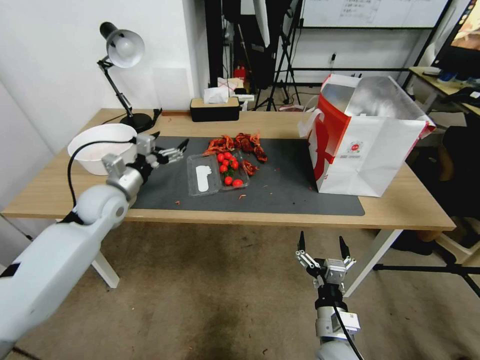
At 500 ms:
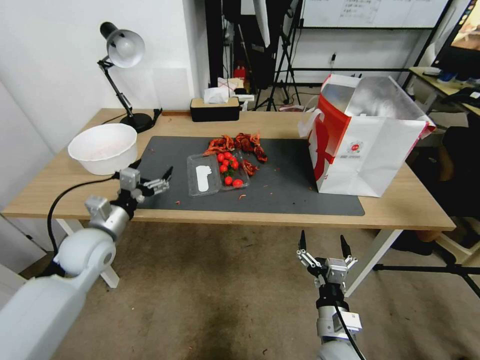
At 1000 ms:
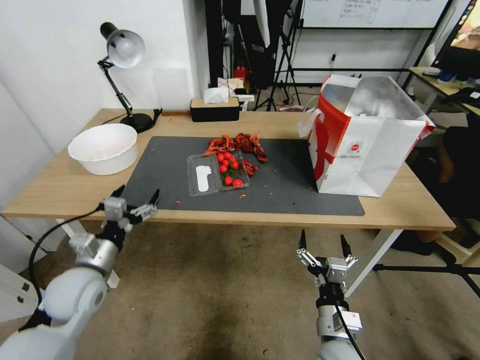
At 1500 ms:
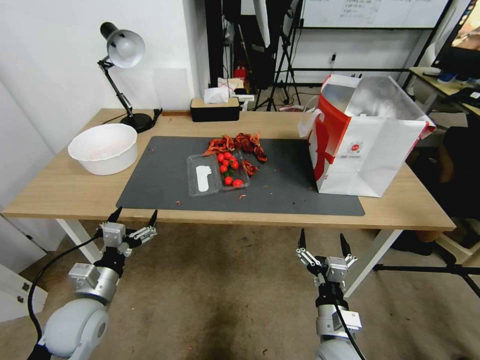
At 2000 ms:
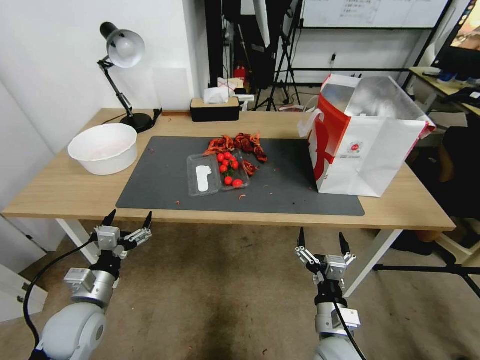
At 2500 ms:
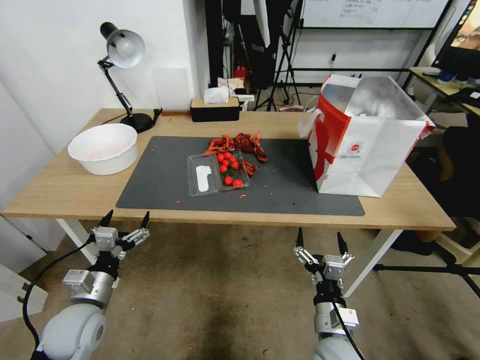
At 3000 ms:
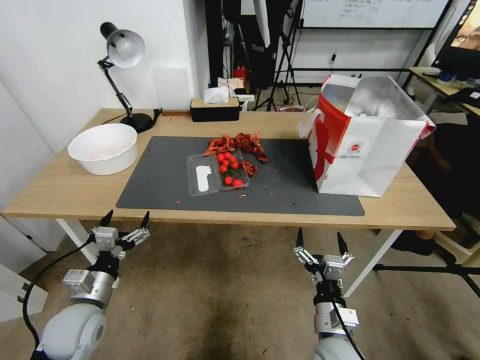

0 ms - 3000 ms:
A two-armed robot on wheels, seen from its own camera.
0 ms - 1500 ms: The left gripper is displaced backward and downward by roughly 25 cm.
1500 ms - 3000 ms: The grippers move only a little.

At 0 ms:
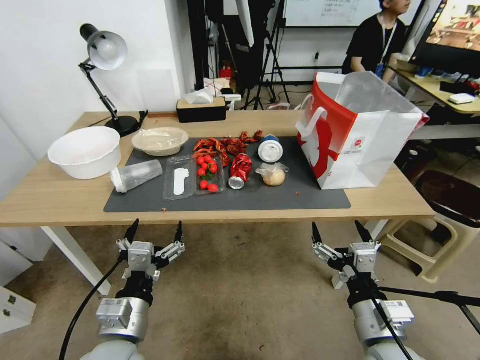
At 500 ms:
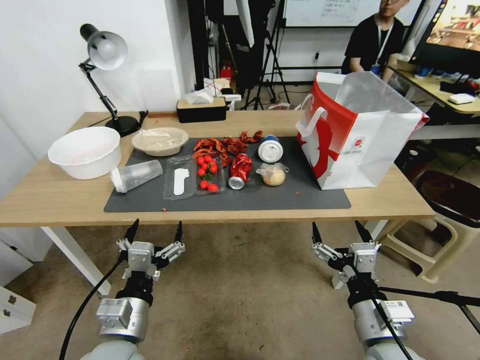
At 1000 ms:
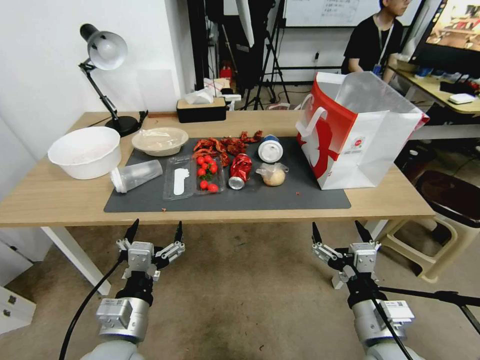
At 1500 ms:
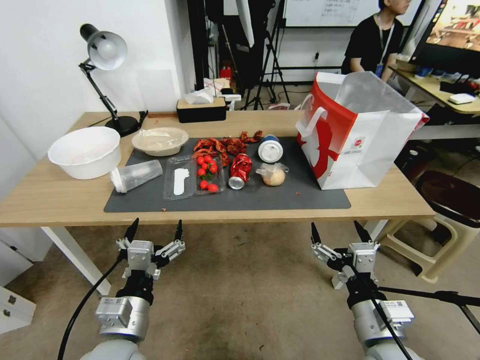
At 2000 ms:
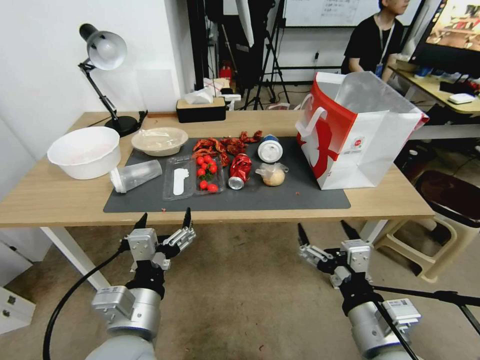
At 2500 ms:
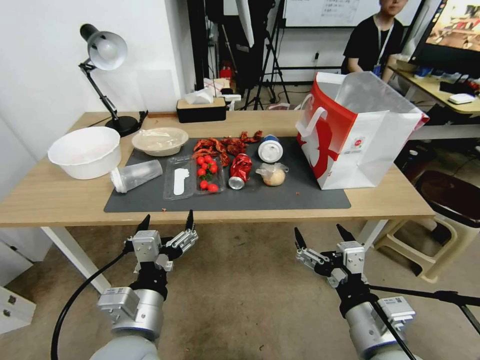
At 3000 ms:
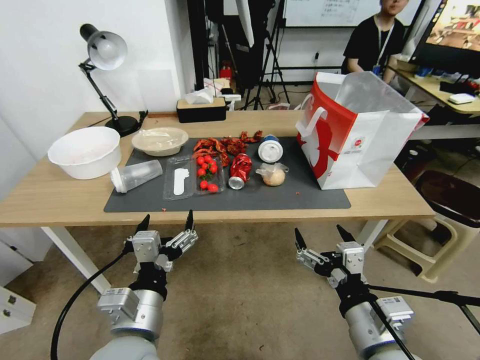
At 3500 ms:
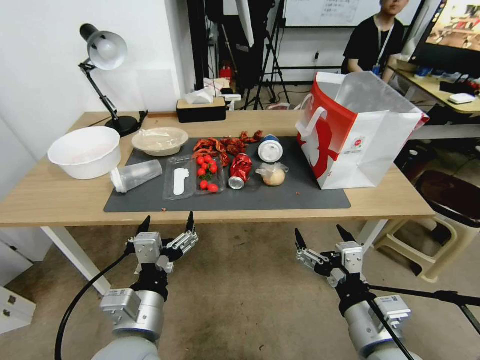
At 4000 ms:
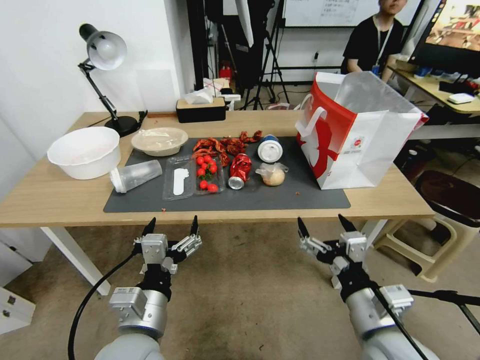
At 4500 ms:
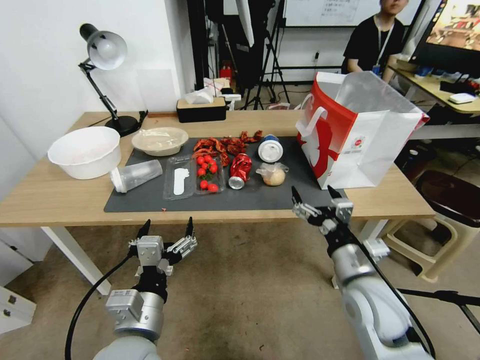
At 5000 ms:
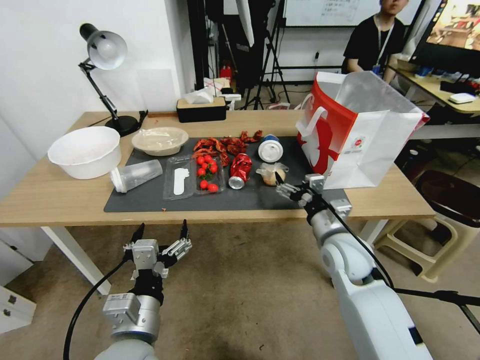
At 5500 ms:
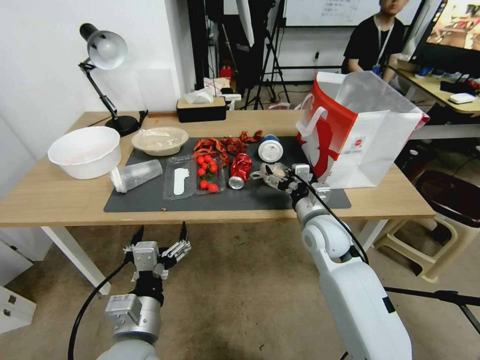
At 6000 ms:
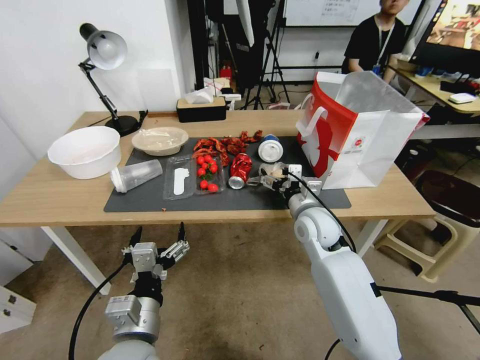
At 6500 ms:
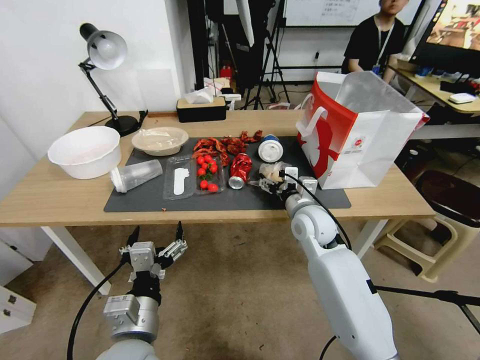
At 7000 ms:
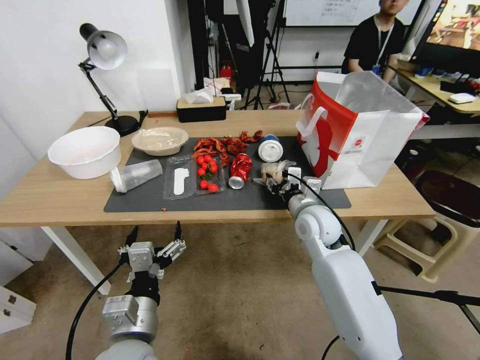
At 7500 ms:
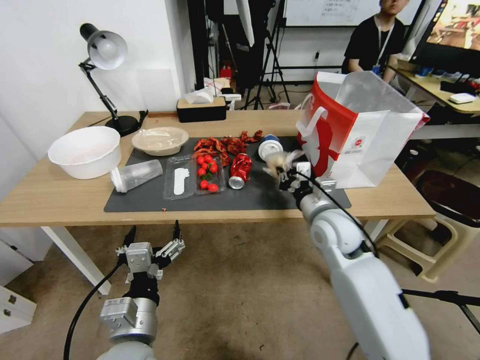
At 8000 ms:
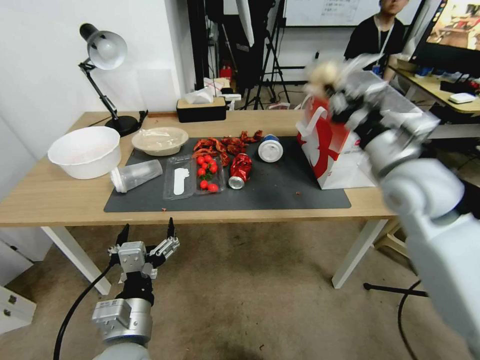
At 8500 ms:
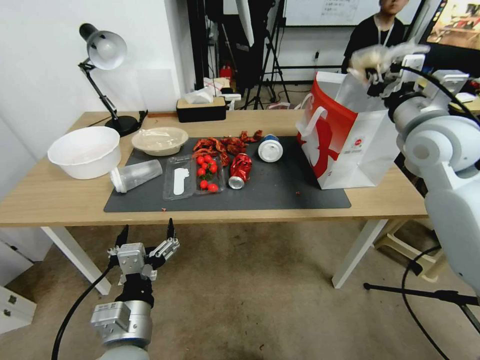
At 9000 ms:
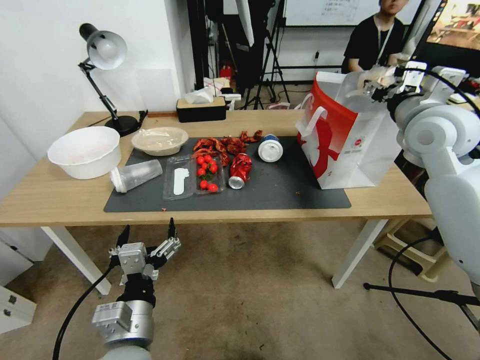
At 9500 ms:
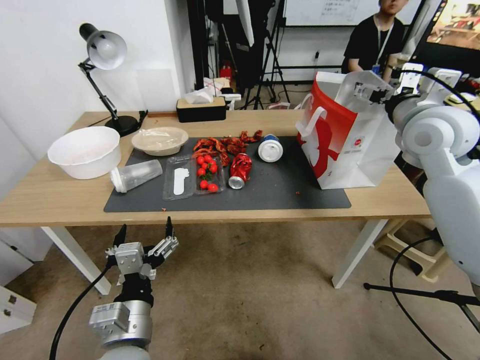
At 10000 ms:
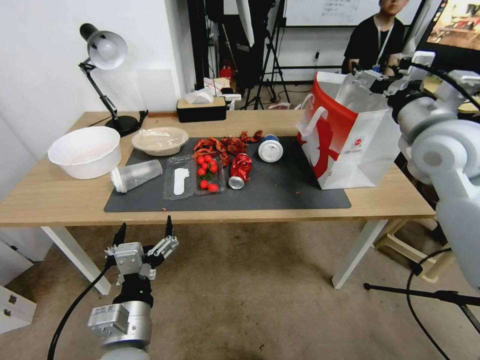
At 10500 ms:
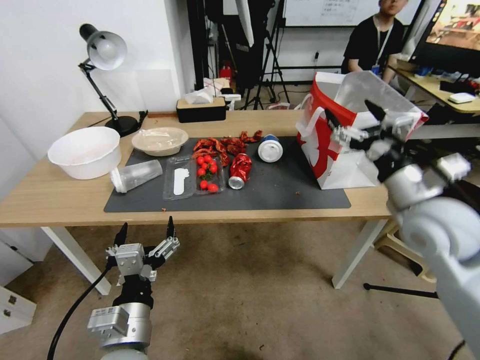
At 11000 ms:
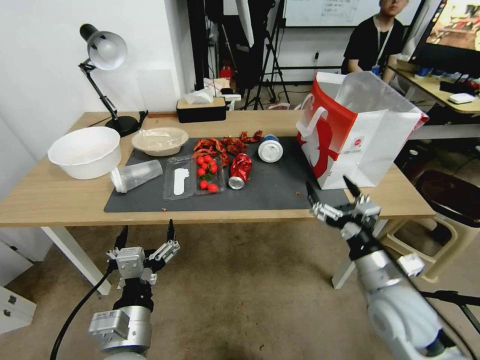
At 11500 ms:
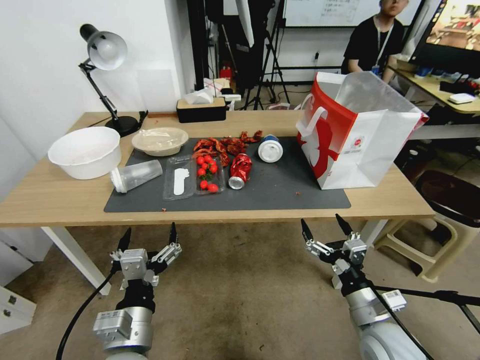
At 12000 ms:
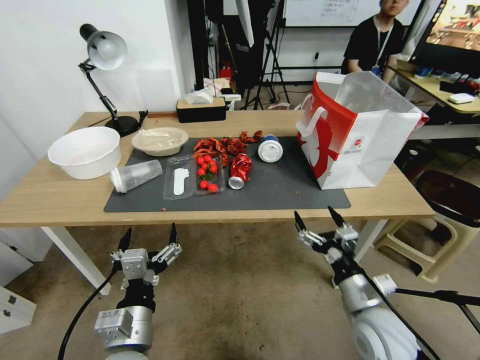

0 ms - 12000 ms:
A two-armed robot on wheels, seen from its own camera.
2000 ms - 4000 ms: The grippers make only small movements.
4000 ms - 6000 ms: The right gripper is displaced forward by approximately 25 cm.
6000 ms - 8000 ms: The right gripper travels upward and to the right by about 20 cm, and closes its fingers.
8000 ms - 10000 ms: The right gripper shifts about 10 cm upward and to the right, and opens.
10000 ms - 12000 ms: The right gripper heads downward and backward, covering some 35 cm.

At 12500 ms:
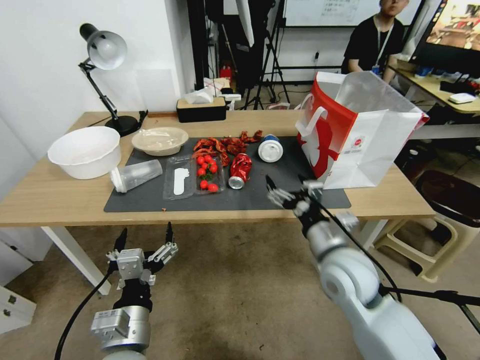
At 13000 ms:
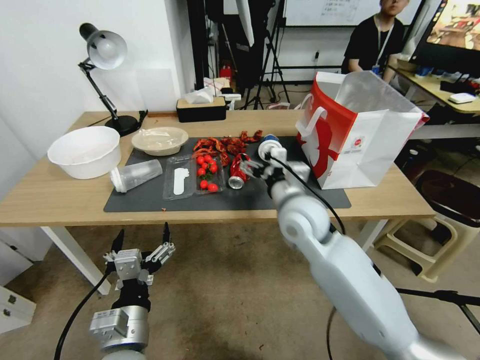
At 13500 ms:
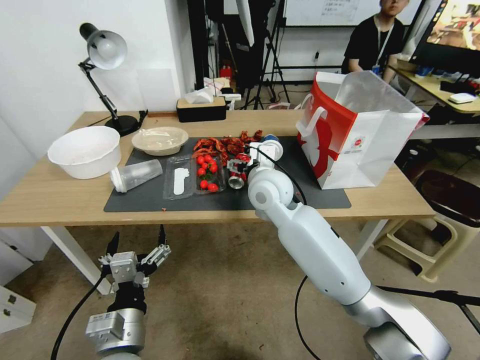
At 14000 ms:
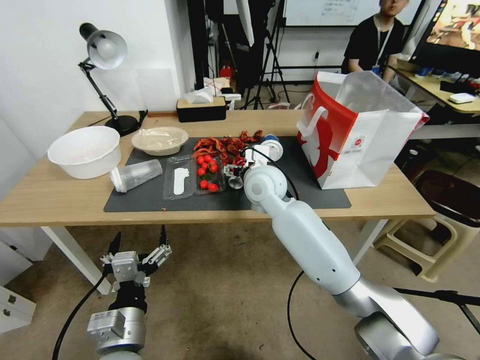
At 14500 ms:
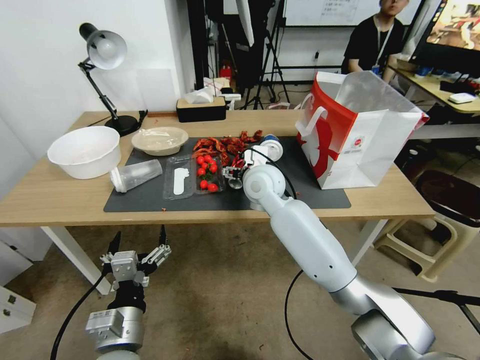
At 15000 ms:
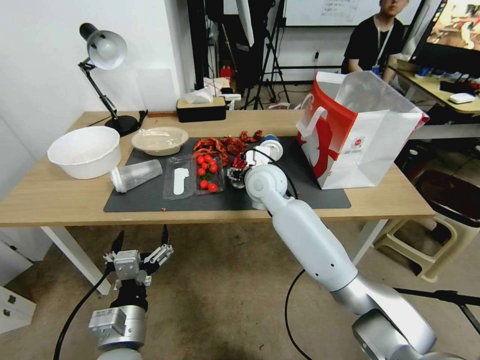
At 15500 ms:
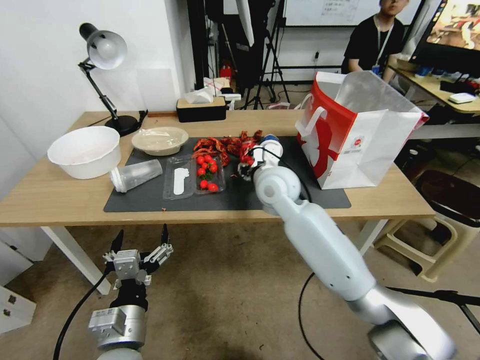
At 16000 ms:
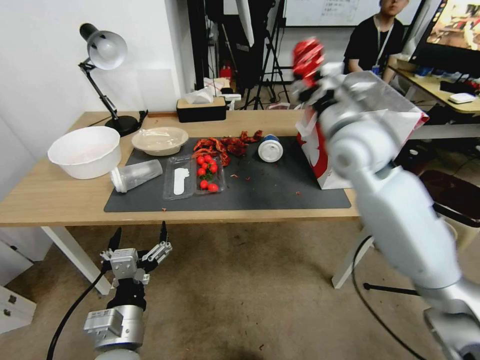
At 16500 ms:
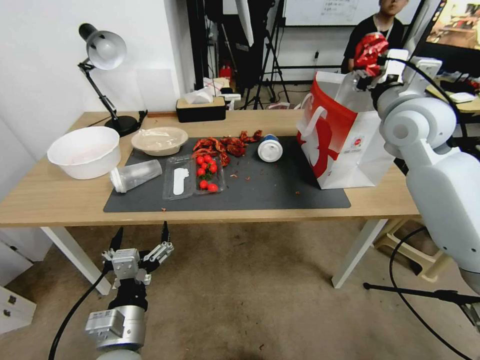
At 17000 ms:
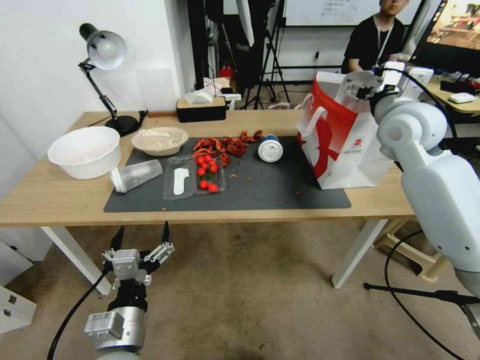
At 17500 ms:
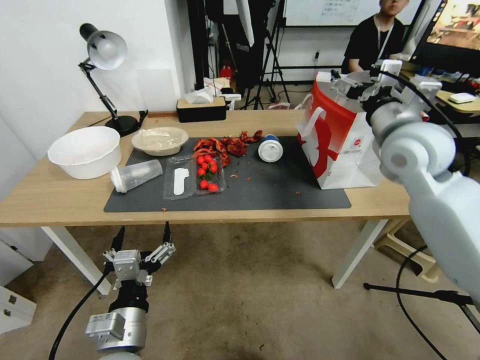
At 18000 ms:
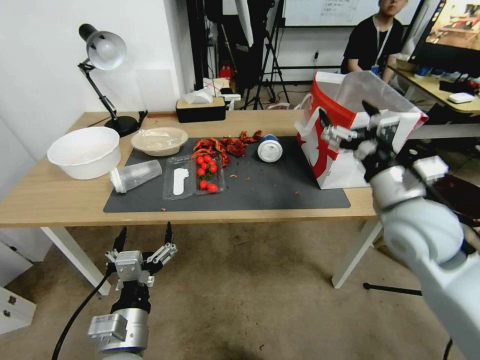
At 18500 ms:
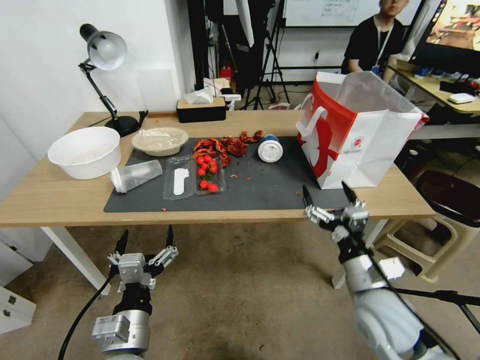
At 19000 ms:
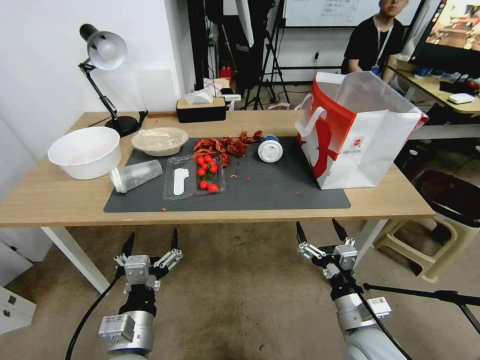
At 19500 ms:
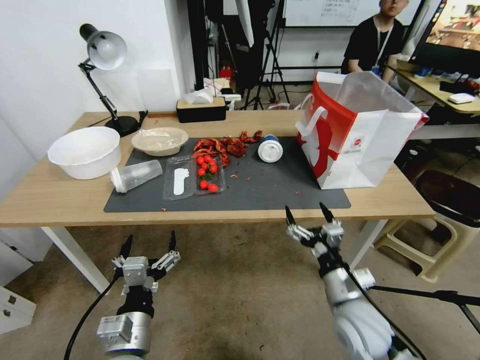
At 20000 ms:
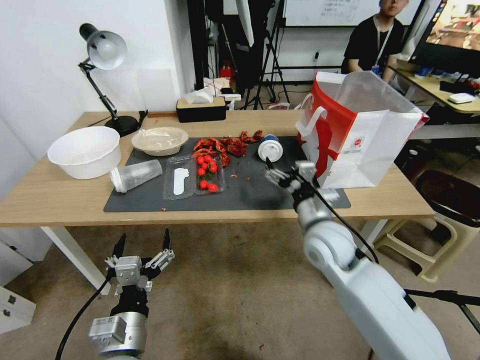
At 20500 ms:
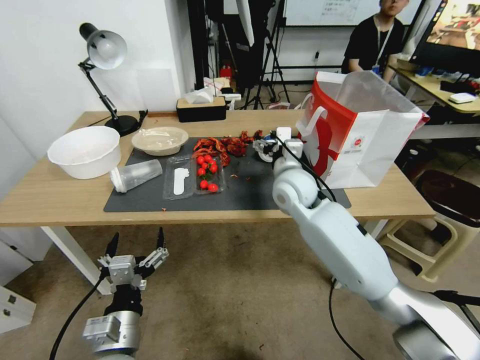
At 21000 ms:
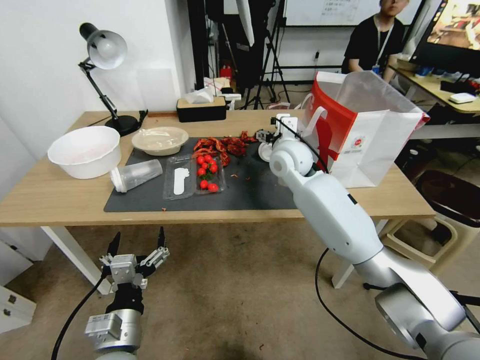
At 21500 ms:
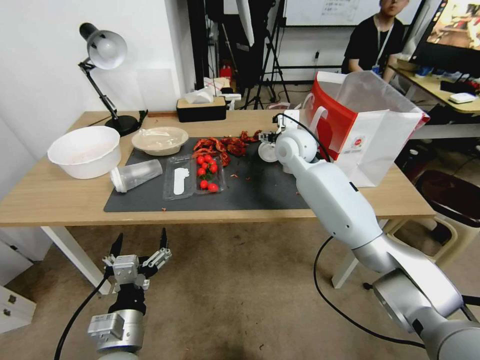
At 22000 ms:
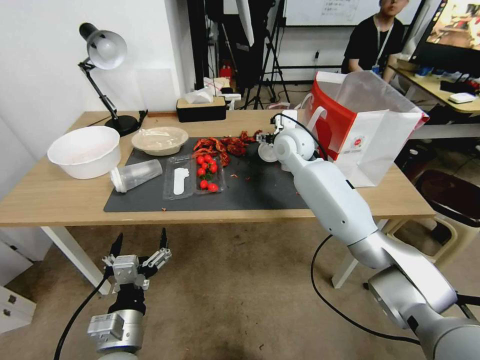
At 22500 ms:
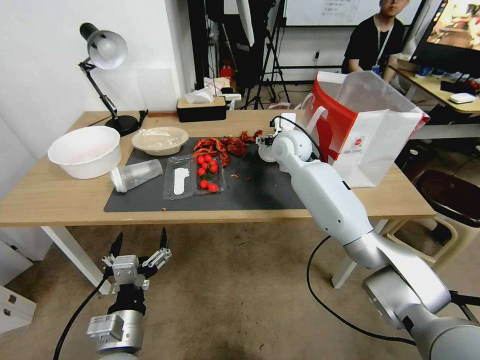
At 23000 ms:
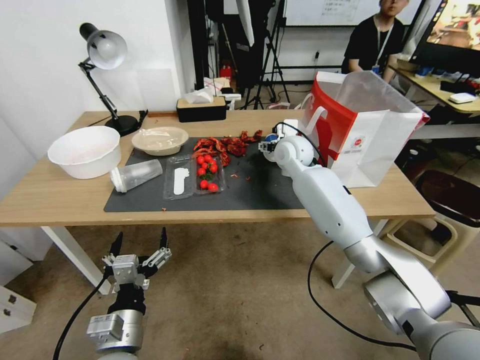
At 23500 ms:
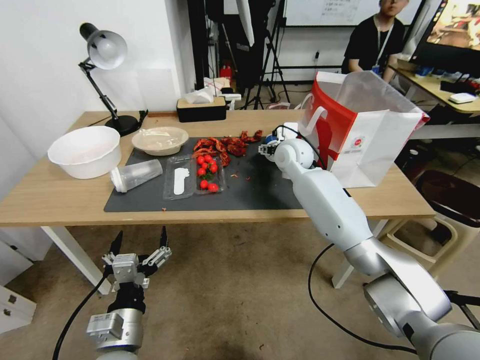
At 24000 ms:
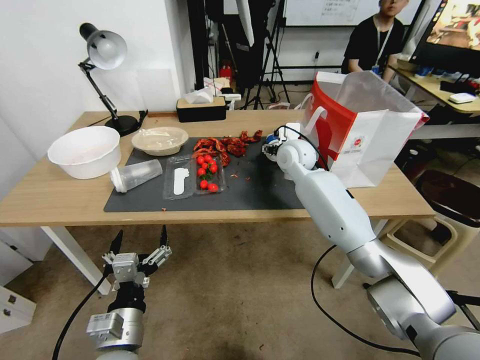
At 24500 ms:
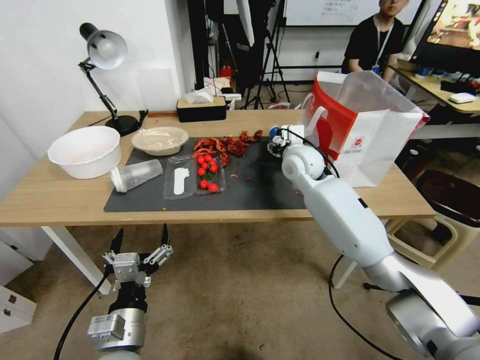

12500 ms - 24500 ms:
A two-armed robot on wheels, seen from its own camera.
12500 ms - 14500 ms: The right gripper shifts some 25 cm forward and to the left.
14500 ms - 16500 ms: The right gripper shifts some 30 cm to the right and upward, and closes.
16500 ms - 18500 ms: The right gripper travels backward and downward by about 25 cm, and opens up.
18500 ms - 20500 ms: The right gripper goes roughly 20 cm forward and to the left.
20500 ms - 22500 ms: The right gripper shifts roughly 15 cm forward.
22500 ms - 24500 ms: The right gripper shifts by approximately 5 cm, and closes its fingers.
